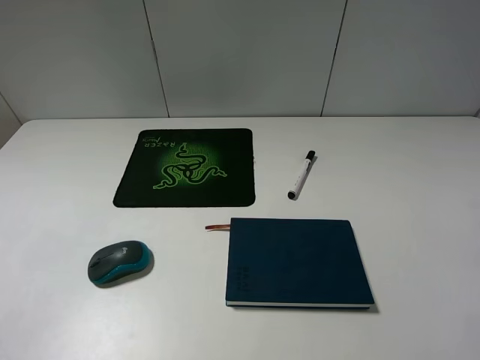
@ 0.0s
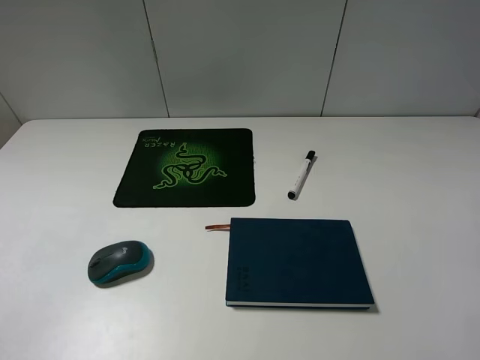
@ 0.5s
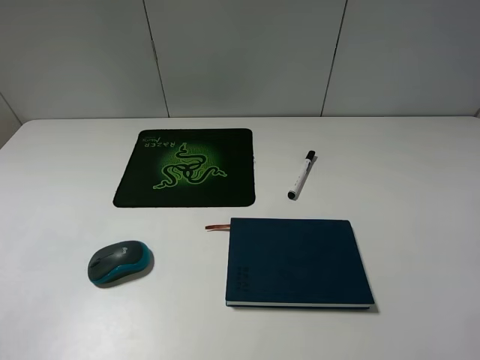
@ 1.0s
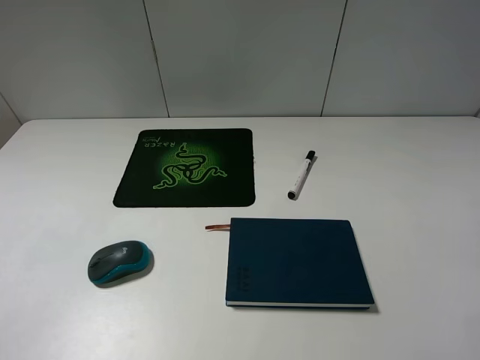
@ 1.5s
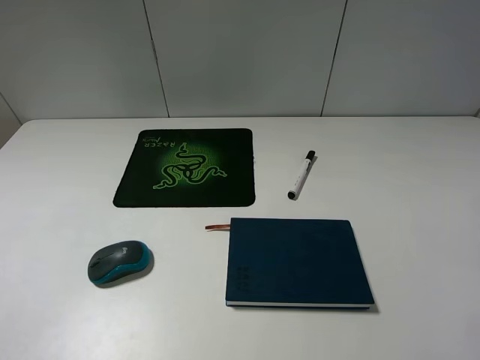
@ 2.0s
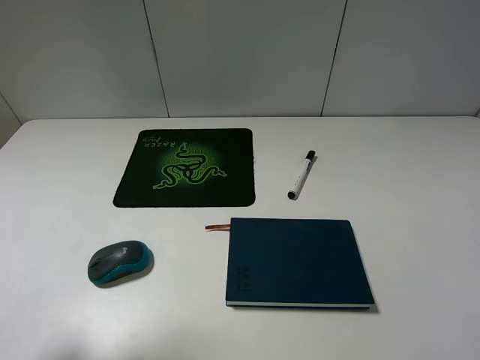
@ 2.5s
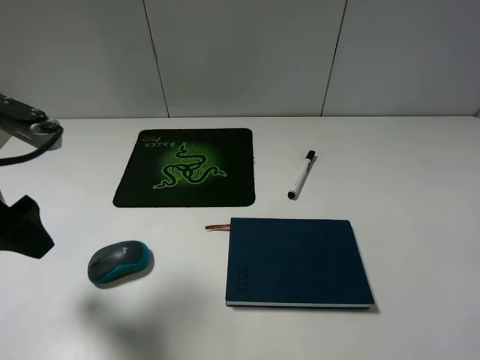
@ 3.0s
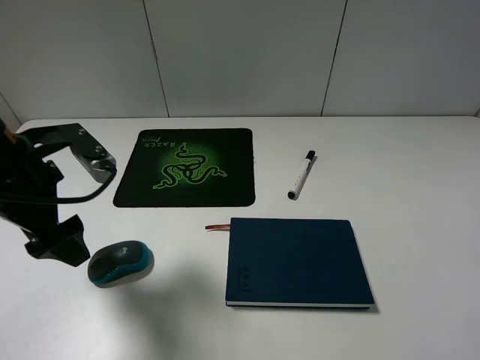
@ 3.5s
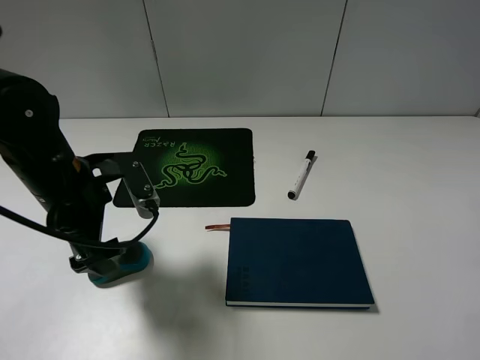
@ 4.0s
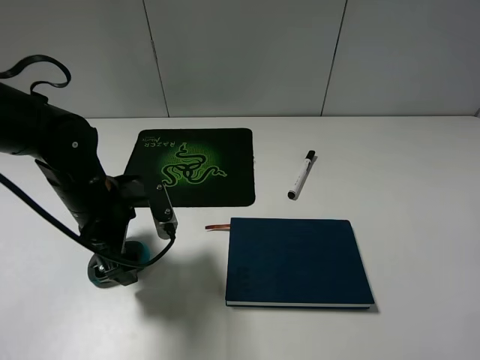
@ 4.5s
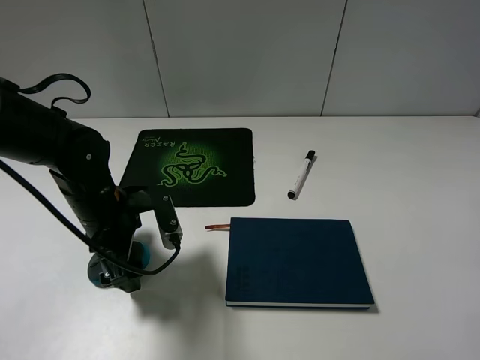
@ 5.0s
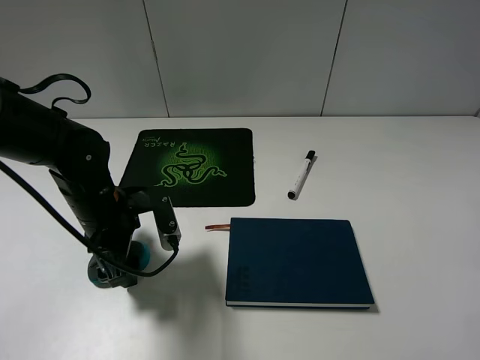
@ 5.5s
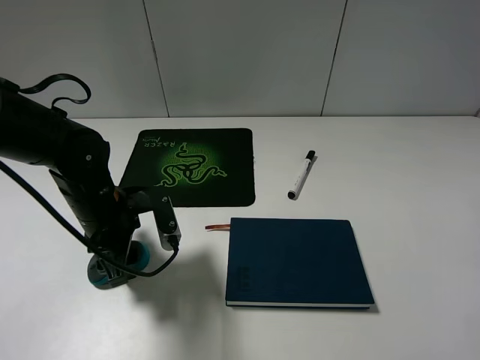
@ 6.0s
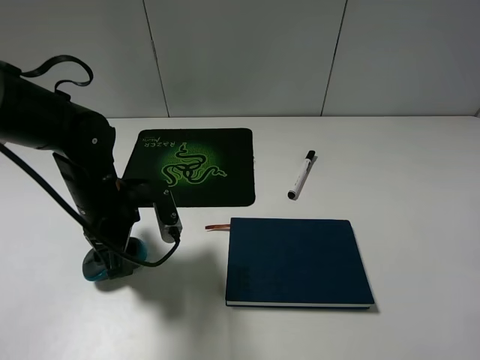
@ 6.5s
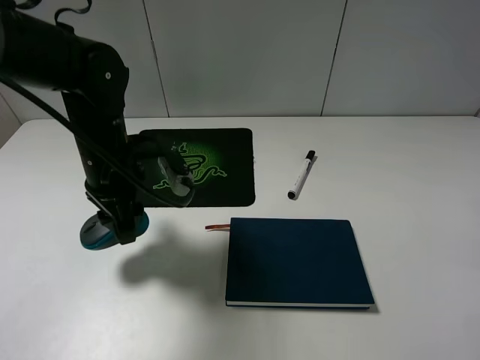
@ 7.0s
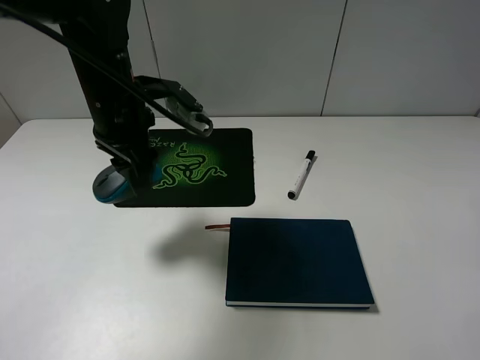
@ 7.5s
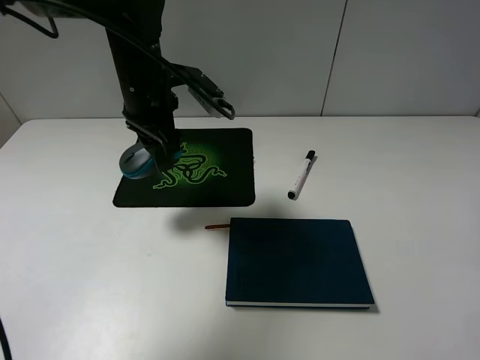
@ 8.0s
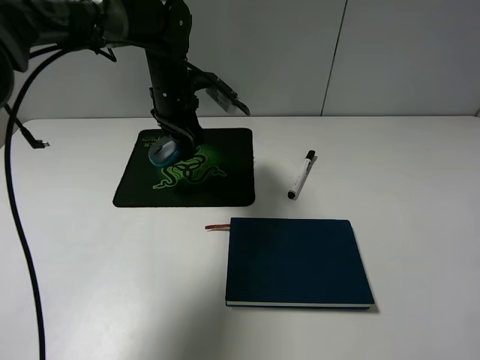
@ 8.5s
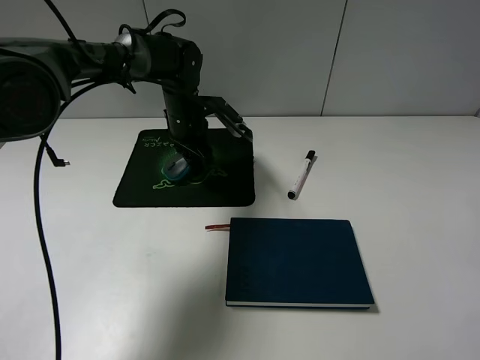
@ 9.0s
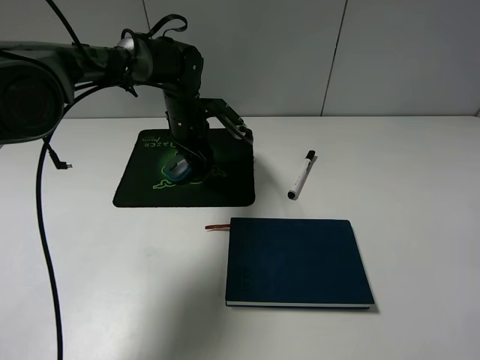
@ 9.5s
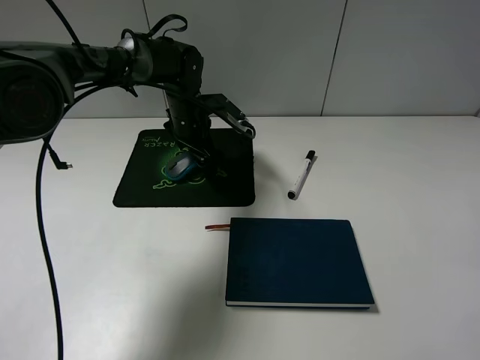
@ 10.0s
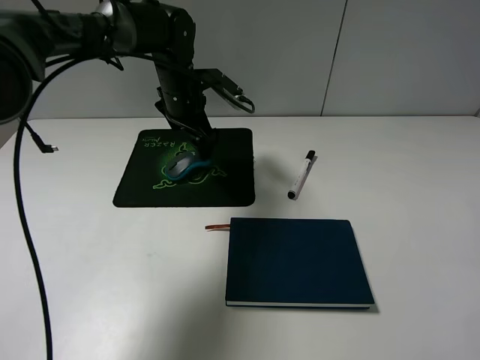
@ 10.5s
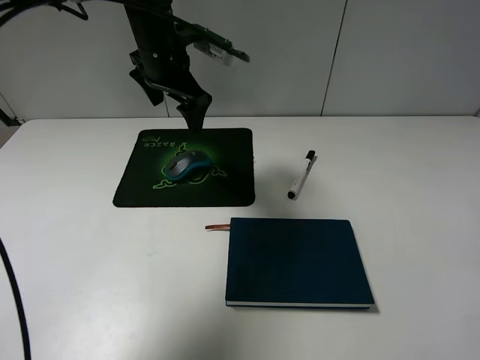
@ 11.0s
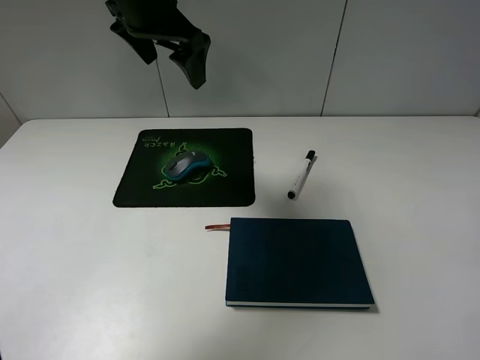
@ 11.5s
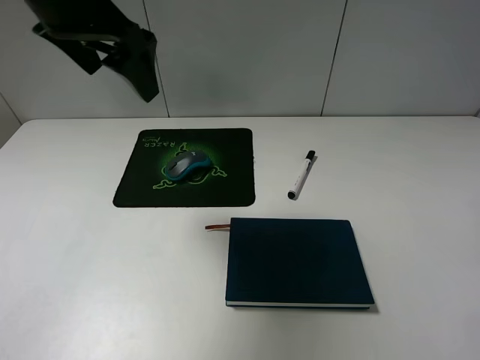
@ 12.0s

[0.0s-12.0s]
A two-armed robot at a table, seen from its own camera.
Step, 0.0s to 5.5s: Grasp the mouse with the left gripper.
Step, 6.0s to 10.0s: Place the mouse on the mouse pad with the left gripper.
2.0s to 4.0s: The left gripper moves forward, downward and to the right, about 25 cm.
4.0s to 6.0s: The left gripper heads downward, covering some 5 cm, and closes up.
6.0s to 8.0s: The left gripper goes about 20 cm forward, upward and to the right.
8.0s to 10.0s: The left gripper is displaced downward and forward by some 15 cm, and opens its fingers.
10.0s to 12.0s: The left gripper travels upward and backward by roughly 30 cm.

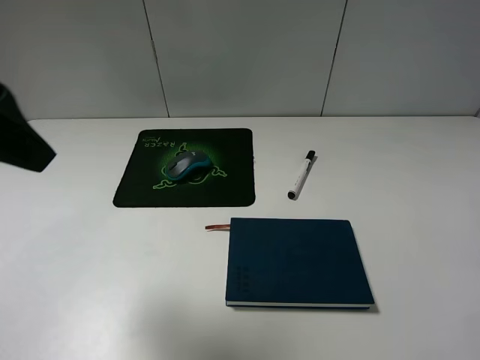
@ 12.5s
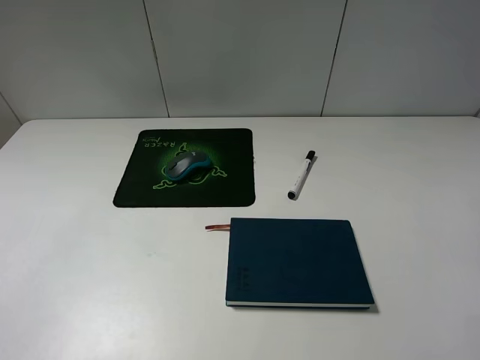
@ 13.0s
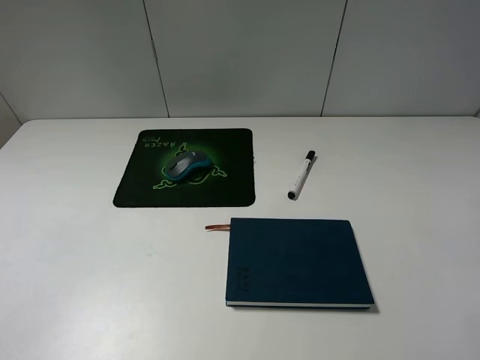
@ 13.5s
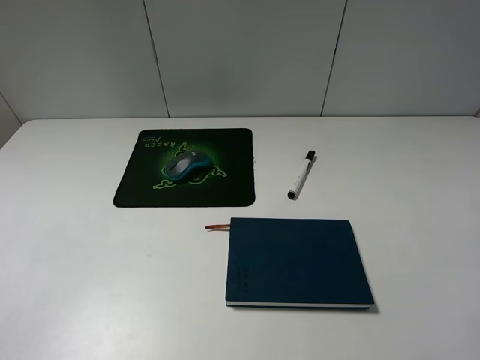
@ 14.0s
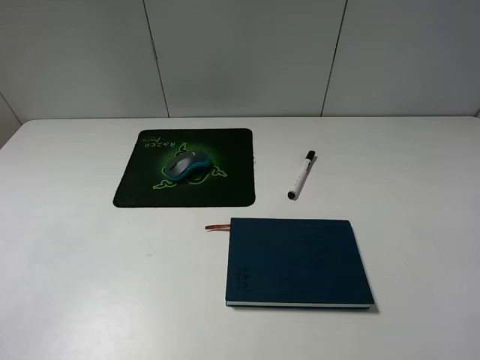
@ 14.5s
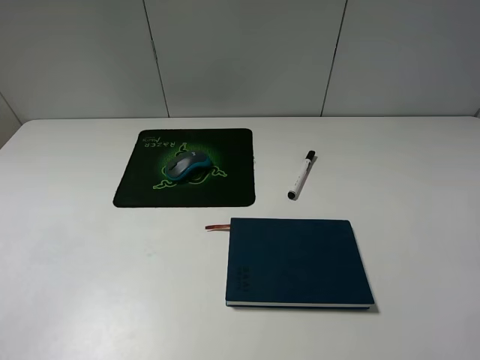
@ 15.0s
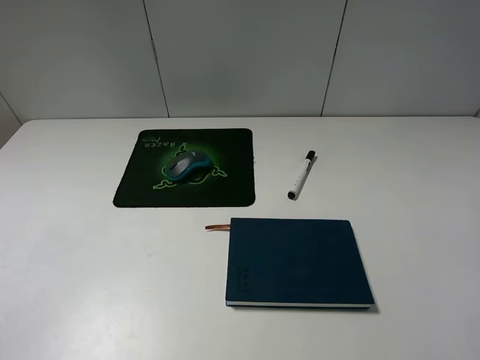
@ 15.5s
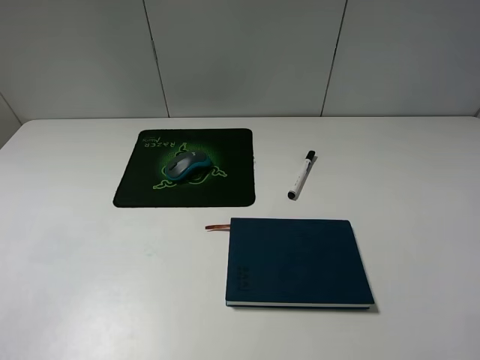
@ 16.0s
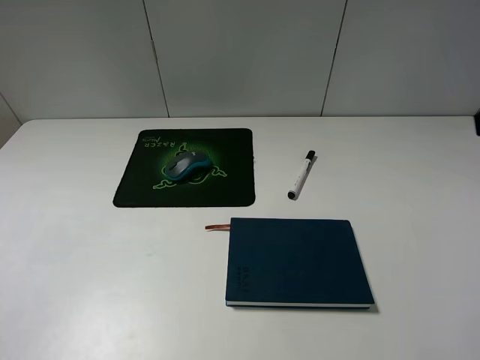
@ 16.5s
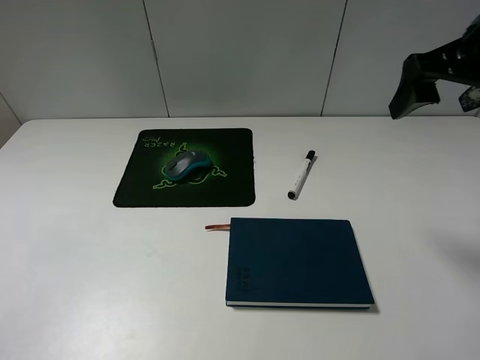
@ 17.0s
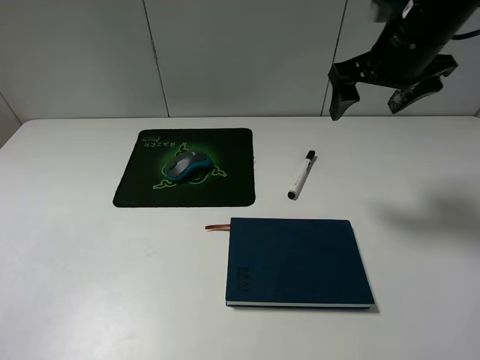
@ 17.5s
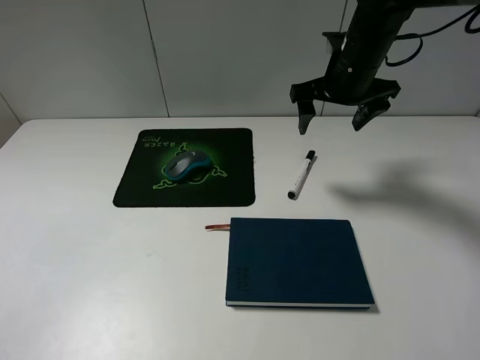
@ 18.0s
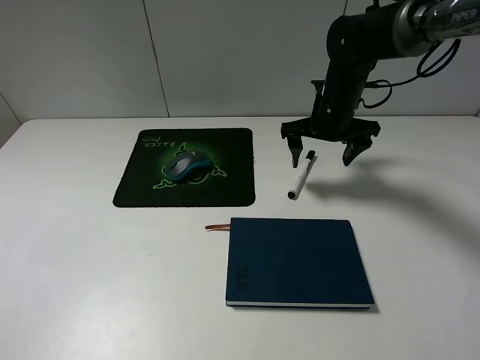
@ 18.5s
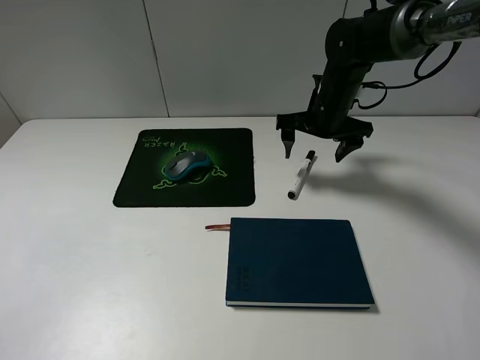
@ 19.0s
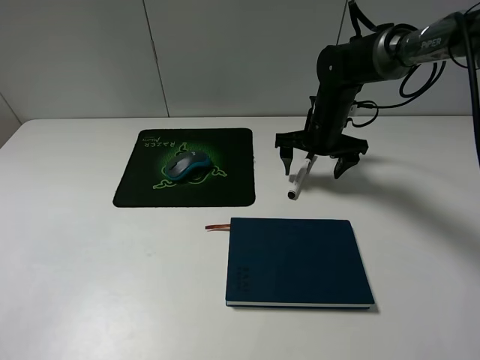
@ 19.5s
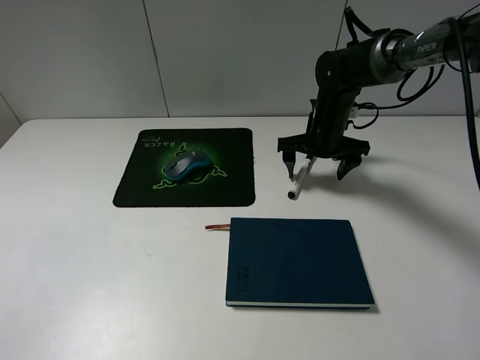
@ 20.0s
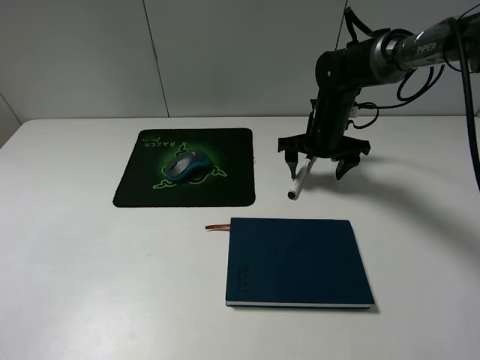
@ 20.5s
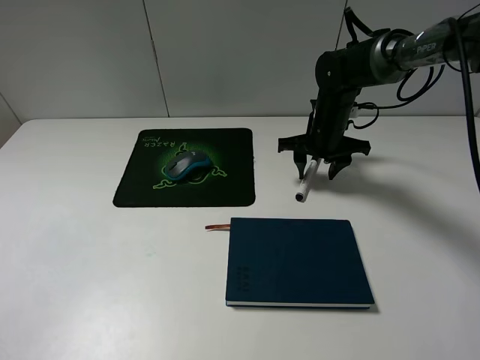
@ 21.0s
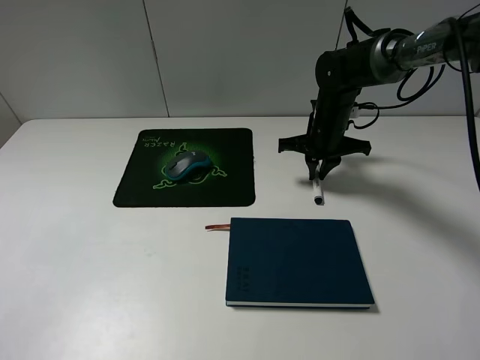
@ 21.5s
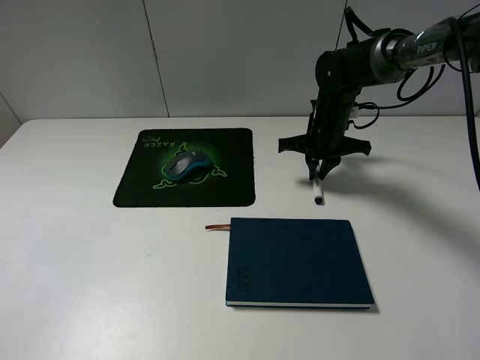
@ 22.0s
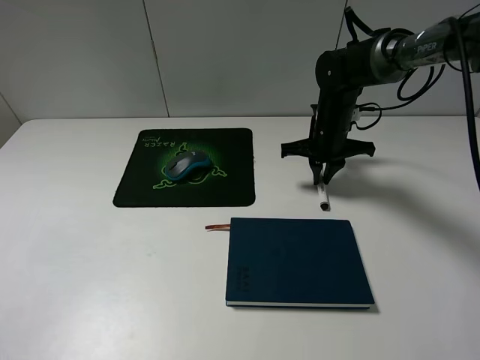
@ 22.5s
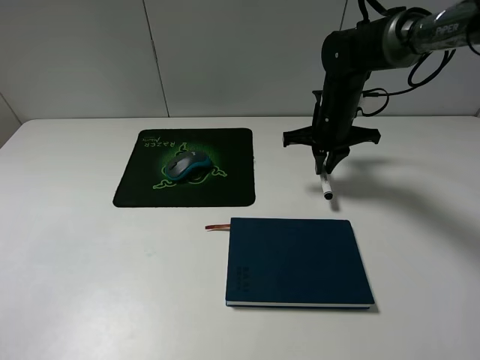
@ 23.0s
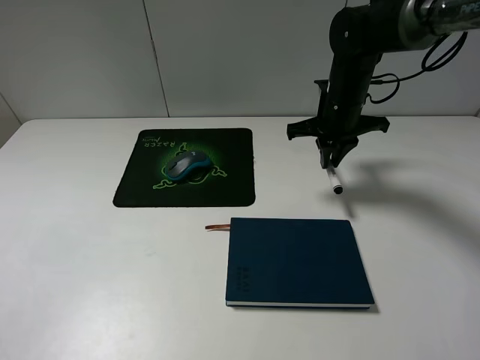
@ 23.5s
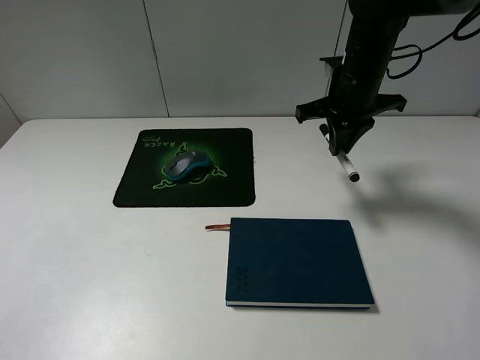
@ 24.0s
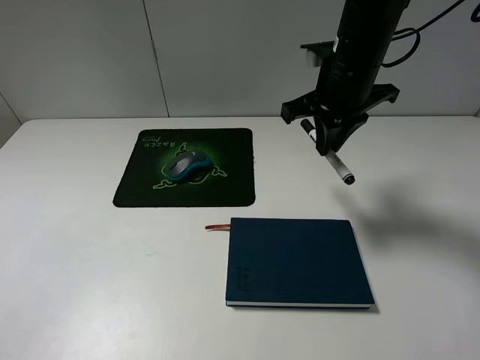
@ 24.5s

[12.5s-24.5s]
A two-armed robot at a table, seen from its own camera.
Step, 12.5s to 21.5s: Grasp the marker with the right gripper.
12.5s to 14.5s: The left gripper heads backward, downward and to the left, covering approximately 20 cm.
16.5s to 18.5s: The right gripper travels forward, downward and to the left by some 35 cm.
18.5s to 20.5s: There are only small adjustments of the grippers.
20.5s to 22.5s: The right gripper closes its fingers.
22.5s to 24.5s: The right gripper moves upward and backward, roughly 15 cm.

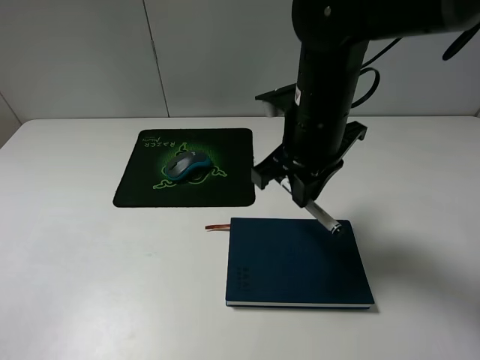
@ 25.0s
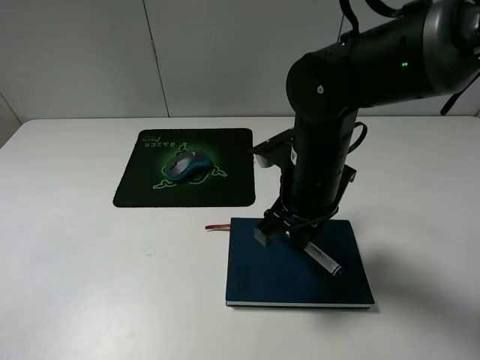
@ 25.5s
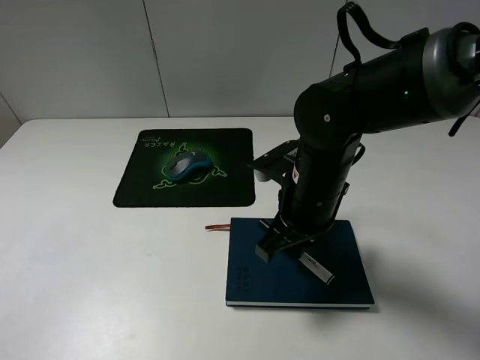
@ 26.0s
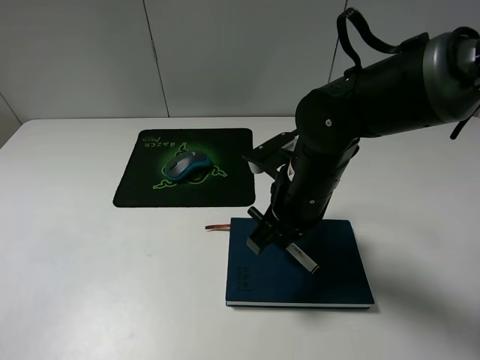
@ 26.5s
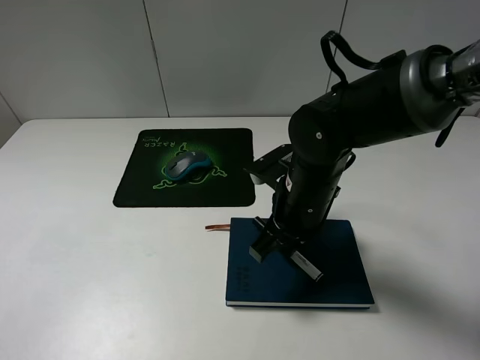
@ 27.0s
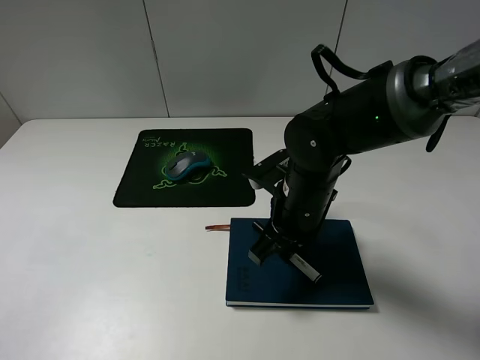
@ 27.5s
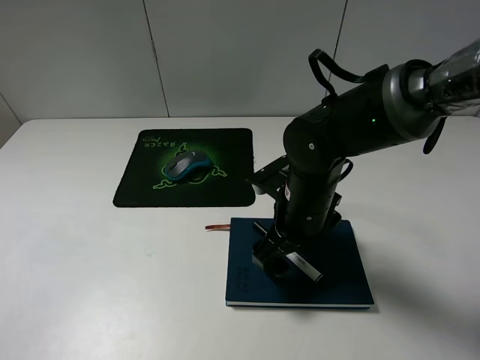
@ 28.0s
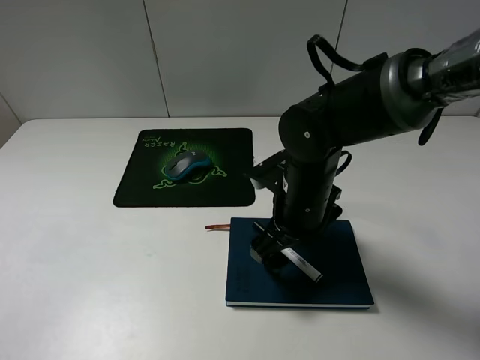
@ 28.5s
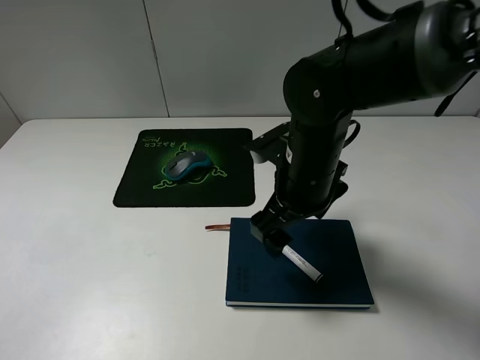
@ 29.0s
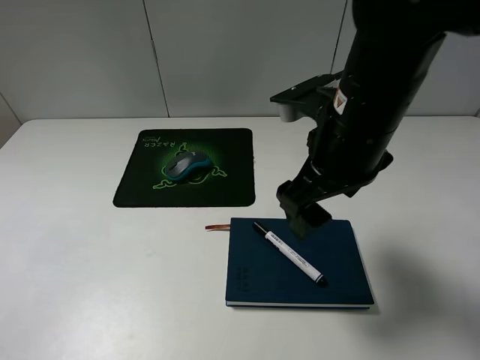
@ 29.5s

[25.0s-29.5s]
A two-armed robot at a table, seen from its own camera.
Step, 25.0s to 29.0s: Place the marker on the notebook with the right gripper.
25.0s to 27.0s: The right gripper travels downward by approximately 10 cm.
27.0s to 29.5s: The right gripper shifts about 10 cm upward, and opens.
